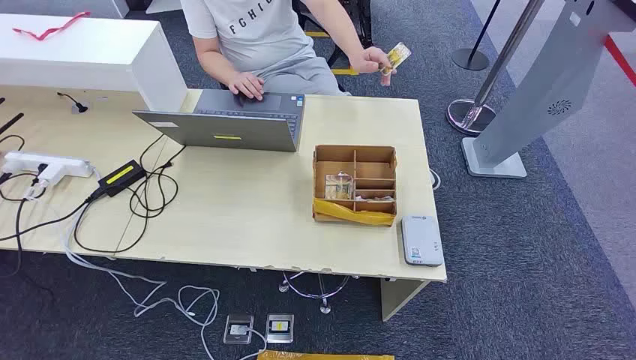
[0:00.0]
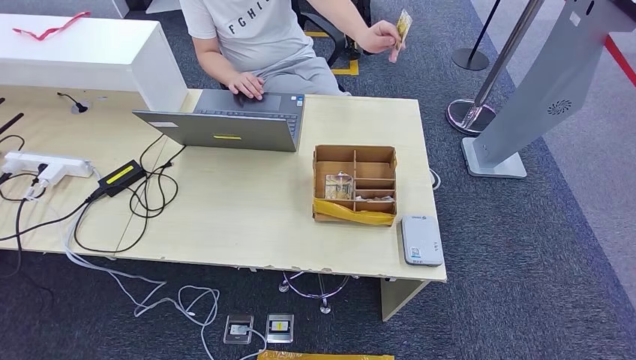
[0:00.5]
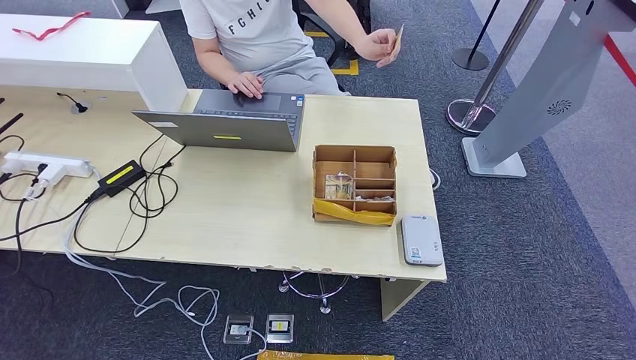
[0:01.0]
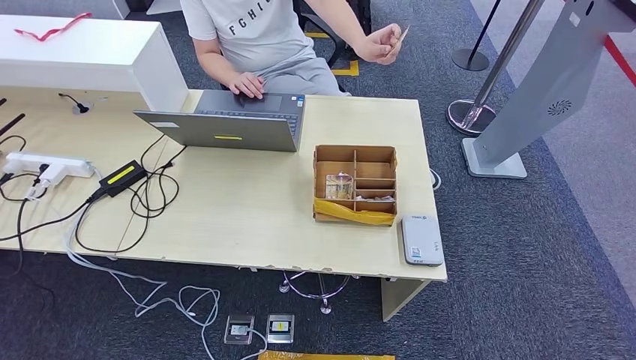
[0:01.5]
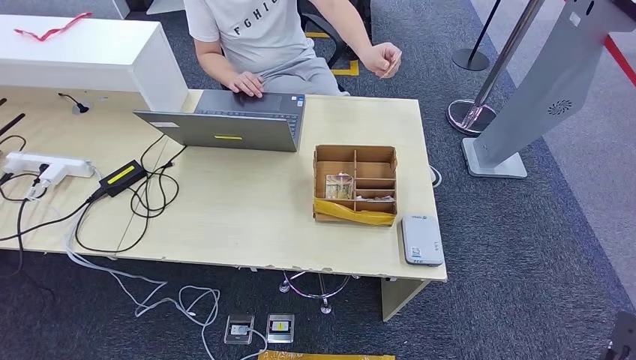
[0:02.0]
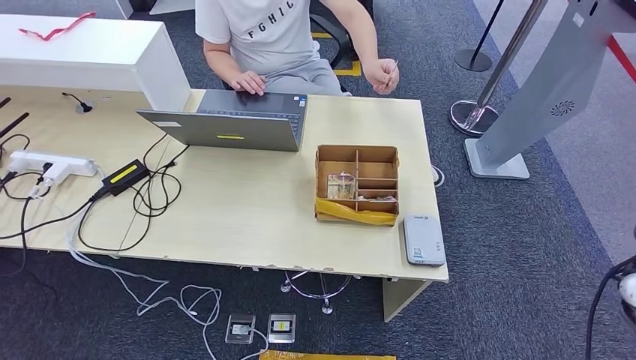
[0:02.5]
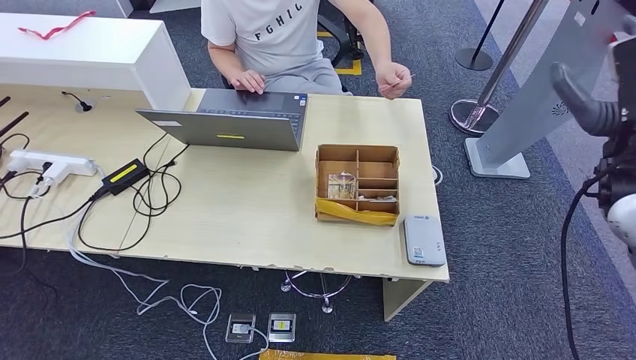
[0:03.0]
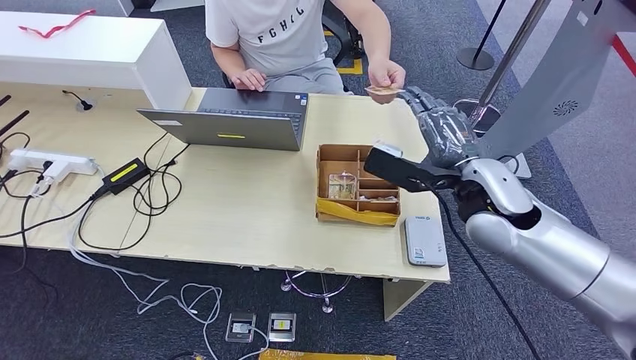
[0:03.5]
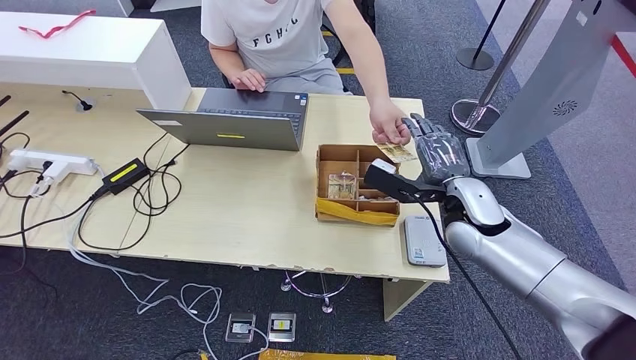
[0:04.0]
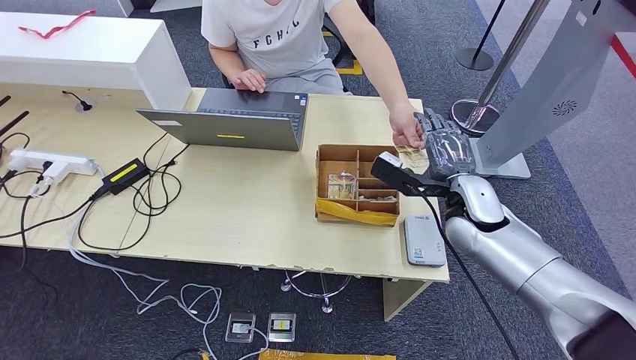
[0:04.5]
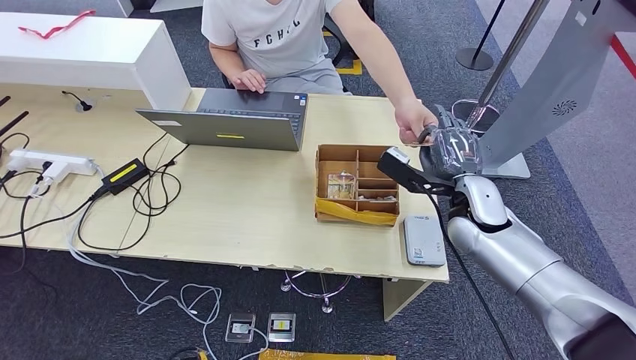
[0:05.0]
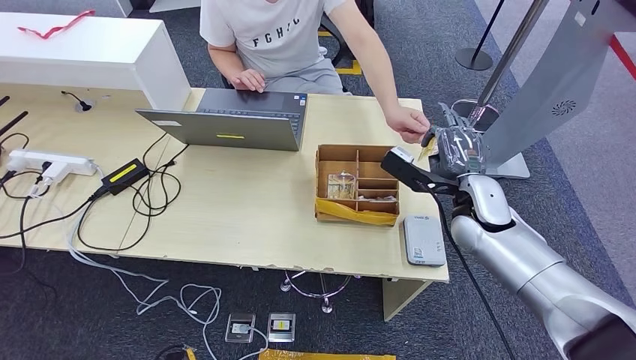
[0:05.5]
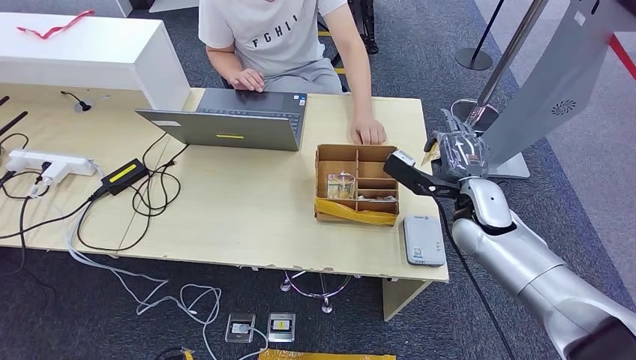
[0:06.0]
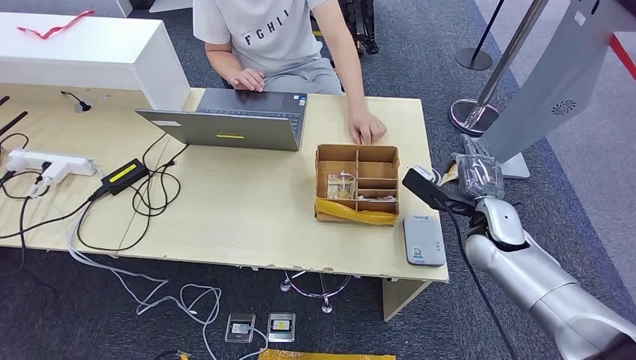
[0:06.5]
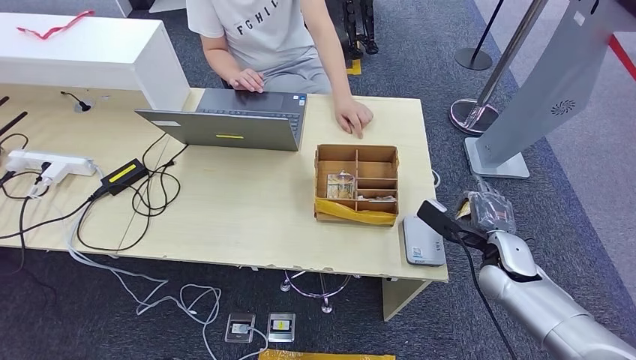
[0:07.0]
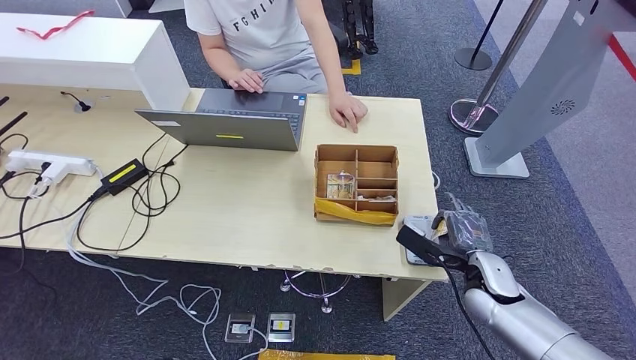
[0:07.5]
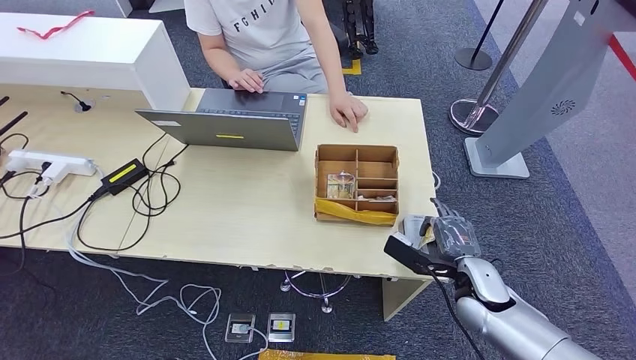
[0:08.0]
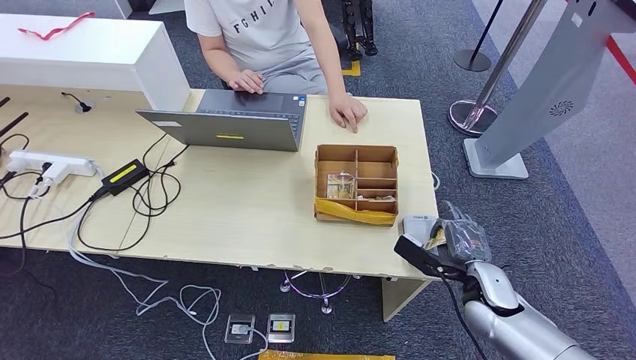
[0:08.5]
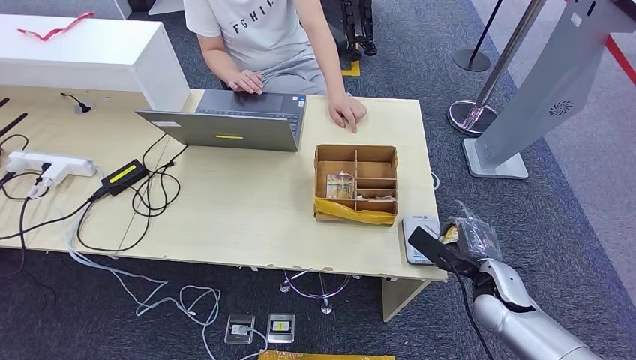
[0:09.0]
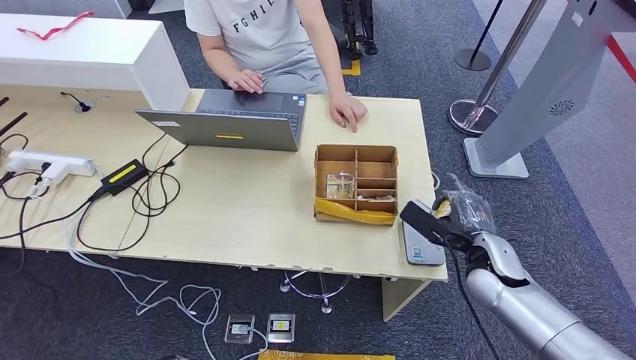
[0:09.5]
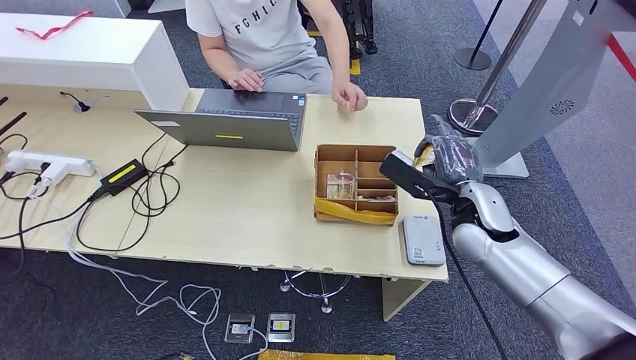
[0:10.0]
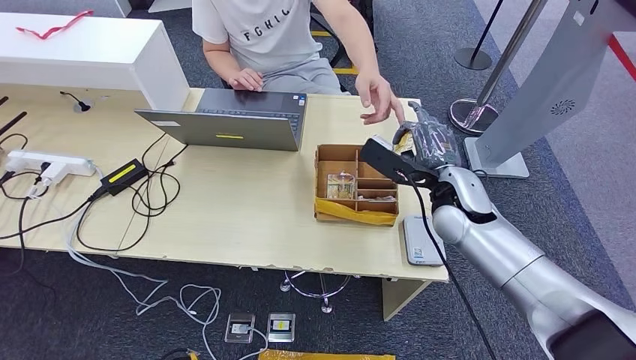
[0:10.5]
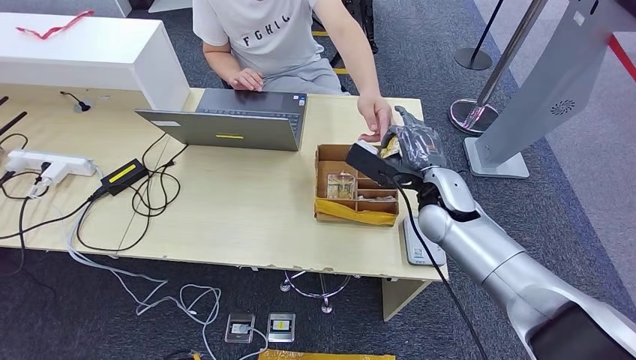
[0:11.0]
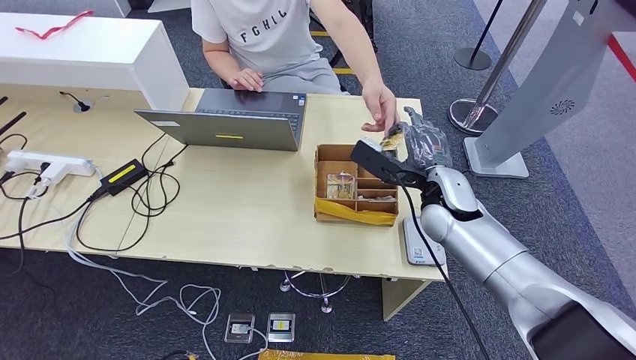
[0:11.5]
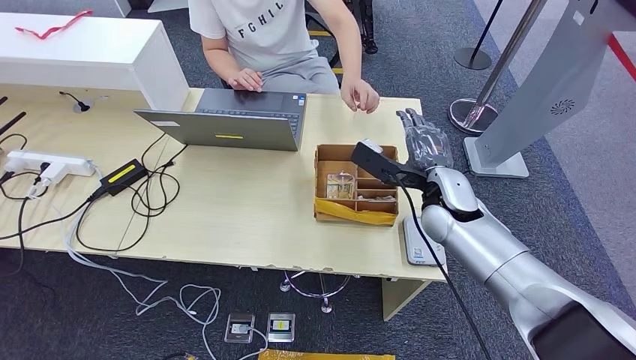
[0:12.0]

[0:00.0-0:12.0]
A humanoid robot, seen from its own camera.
Step, 0.0 to 5.0 s: Take the ID card from the person's hand.
Step, 5.5 to 8.5 s: Place the ID card on the card reader.
4.0 to 6.0 s: There are only small adjustments of the hands.
6.0 to 8.0 s: The right hand heads downward and backward, covering some 15 cm.
8.0 to 10.0 s: The right hand moves upward and forward, approximately 15 cm.
10.0 to 12.0 s: The right hand goes approximately 5 cm to the left.

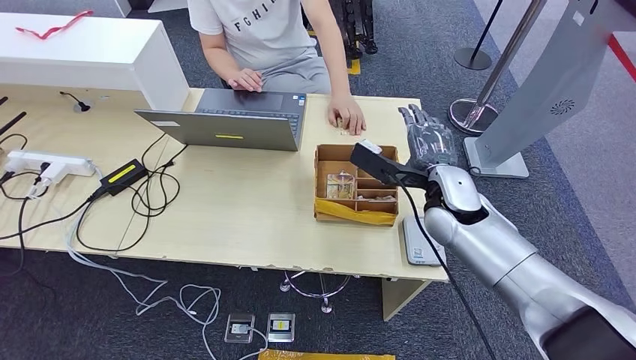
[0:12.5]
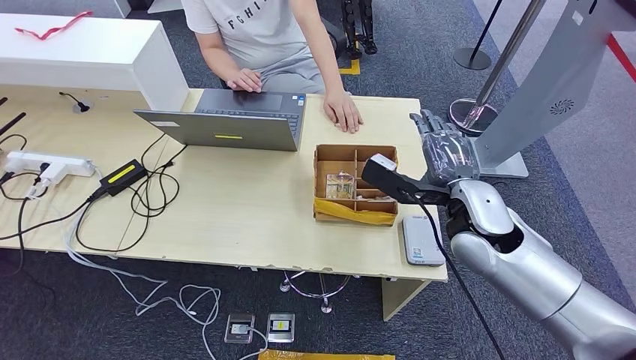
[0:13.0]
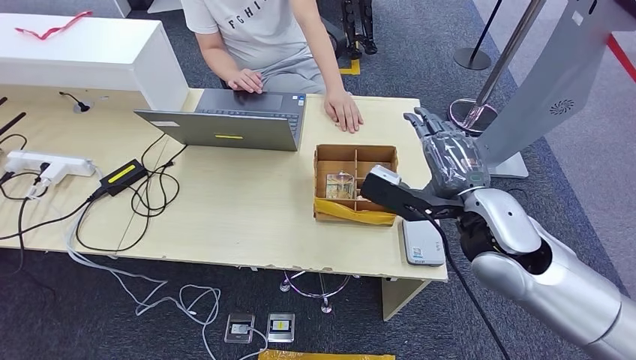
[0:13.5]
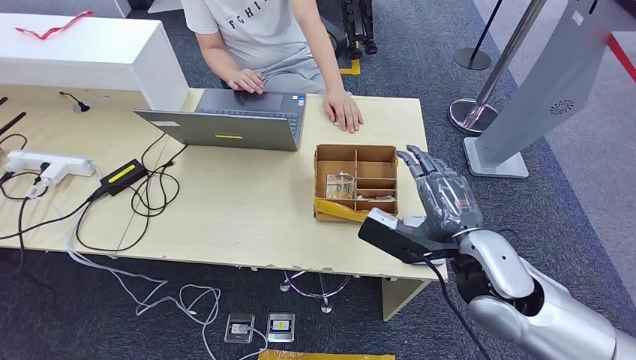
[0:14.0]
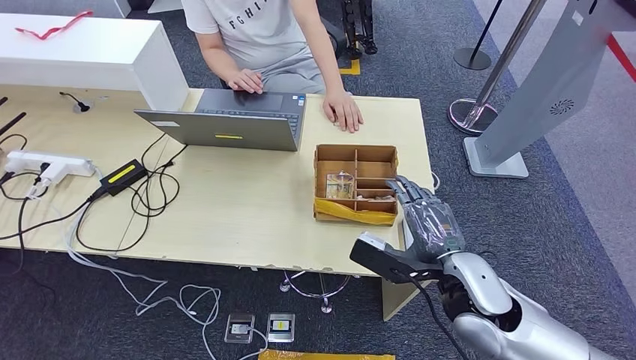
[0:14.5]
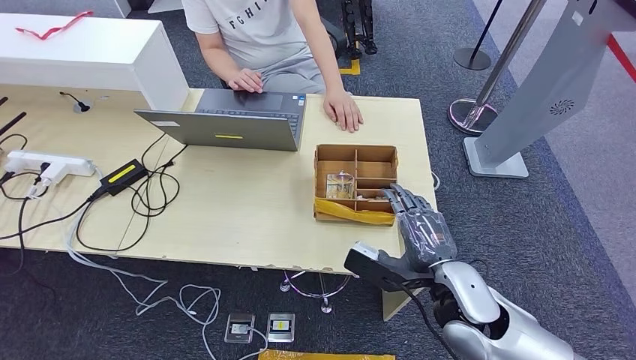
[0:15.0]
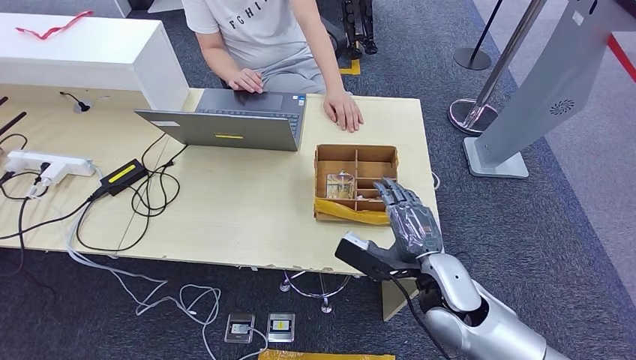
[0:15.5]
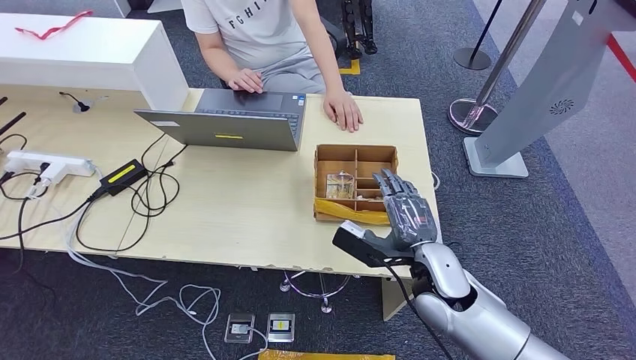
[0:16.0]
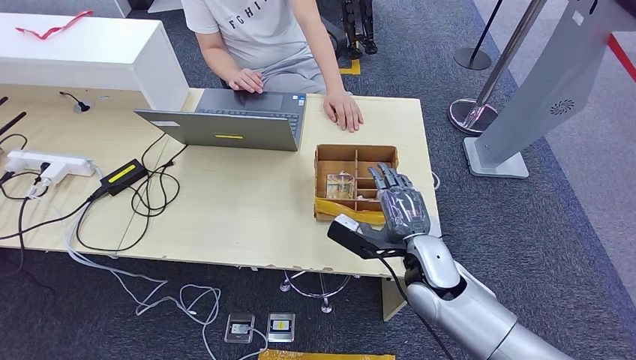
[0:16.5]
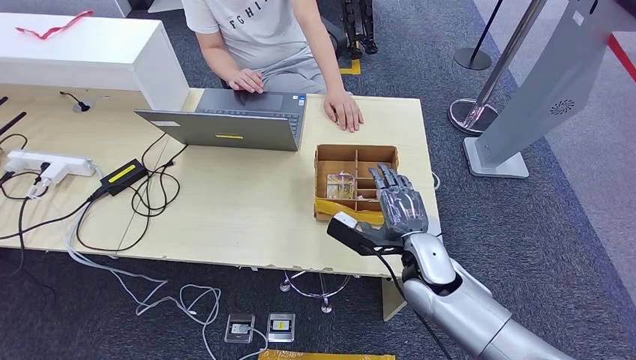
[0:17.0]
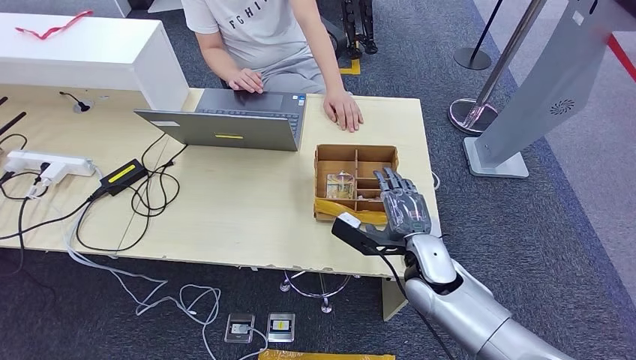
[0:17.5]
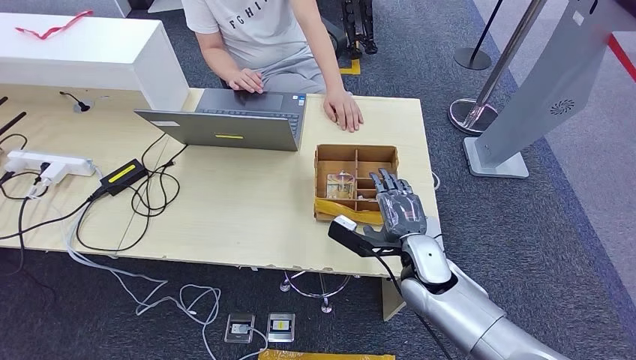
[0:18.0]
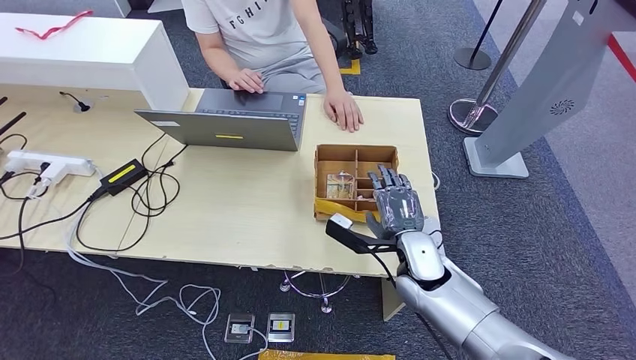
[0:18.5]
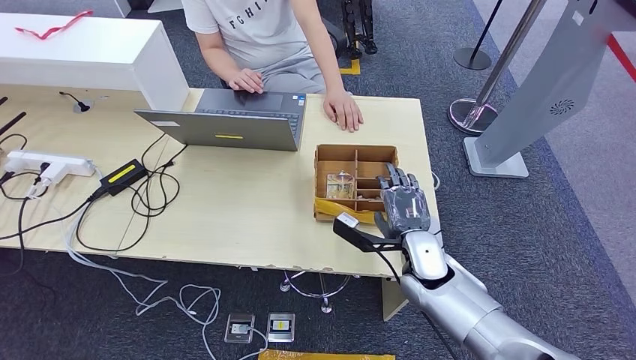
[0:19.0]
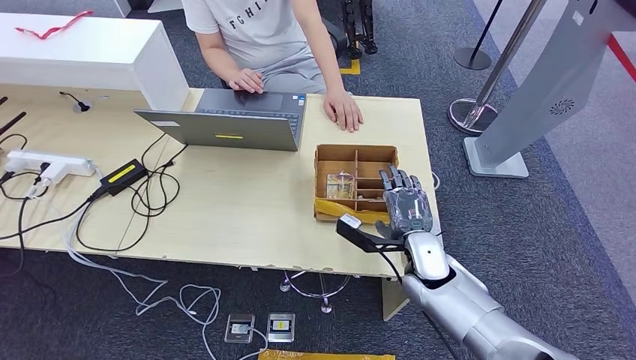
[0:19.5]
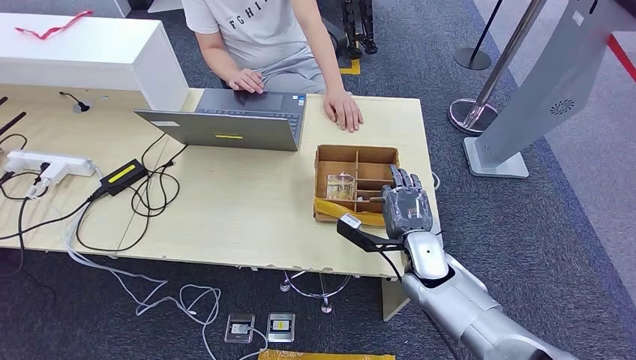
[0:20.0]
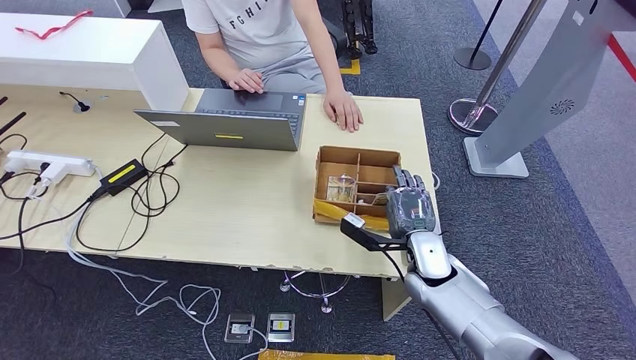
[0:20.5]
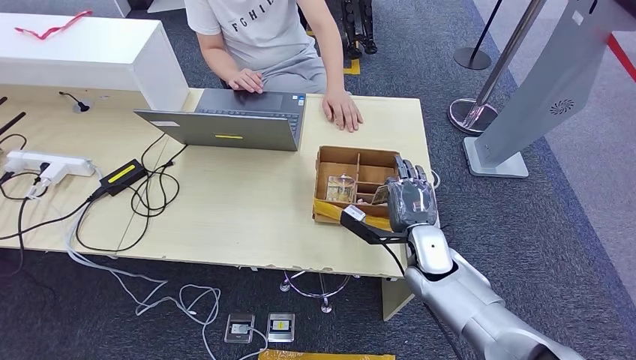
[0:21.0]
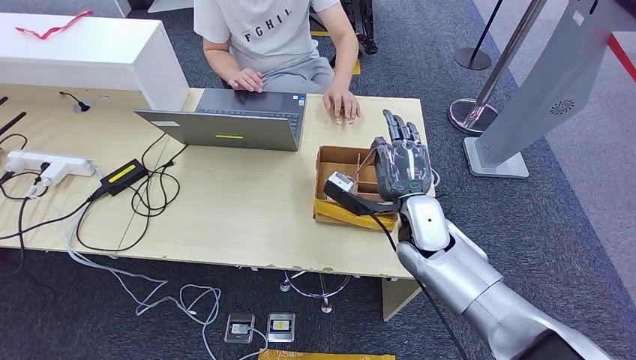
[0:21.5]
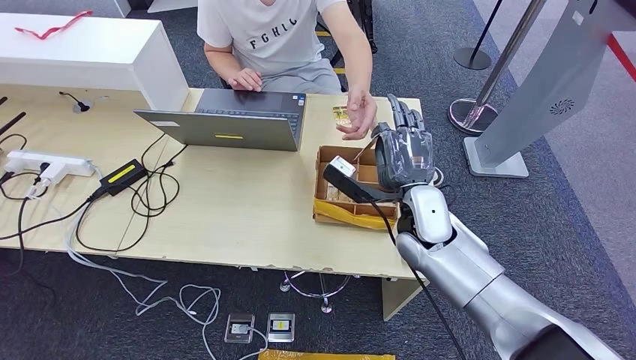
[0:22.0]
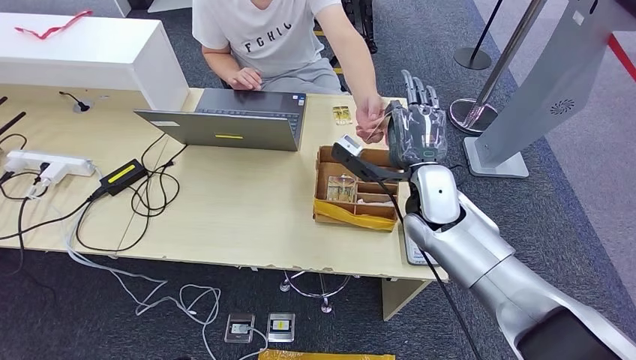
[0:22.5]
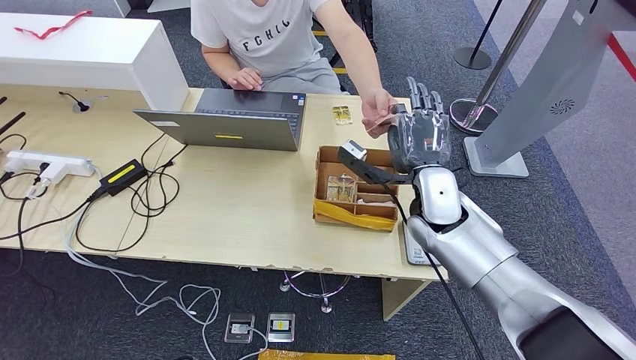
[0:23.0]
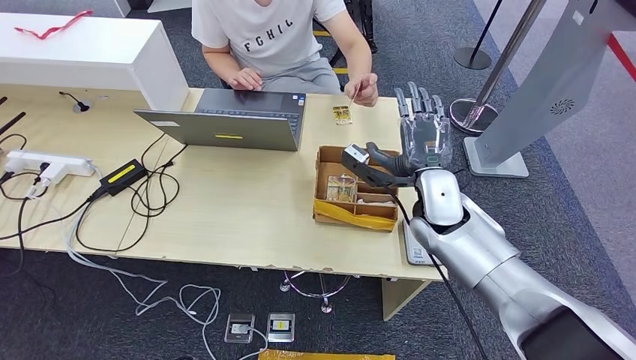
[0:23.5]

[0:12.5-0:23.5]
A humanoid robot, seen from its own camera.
Step, 12.5 to 20.5 s: Pick up the room key from the key card box.
Step, 21.0 to 23.5 s: Hand the room key to the person.
12.5 to 14.5 s: The right hand moves backward, some 15 cm.
14.5 to 16.0 s: The right hand moves some 5 cm.
16.0 to 18.0 s: The hands move only a little.
18.0 to 20.0 s: The hands make only small movements.
20.0 to 21.5 s: The right hand shifts about 10 cm upward.
21.5 to 23.5 s: The right hand shifts by some 5 cm.
